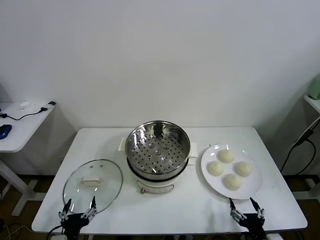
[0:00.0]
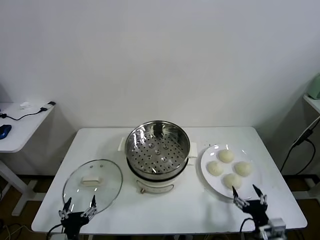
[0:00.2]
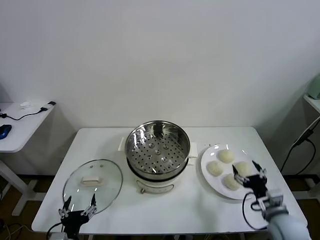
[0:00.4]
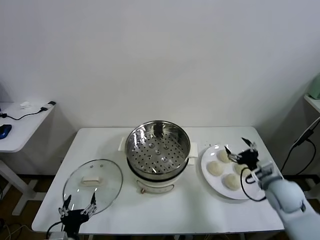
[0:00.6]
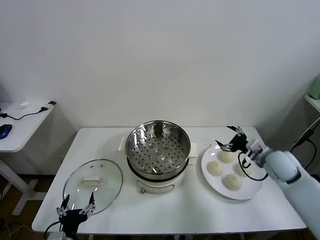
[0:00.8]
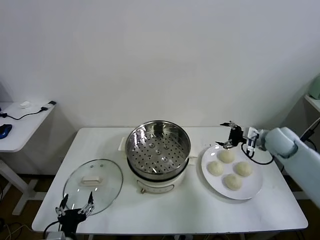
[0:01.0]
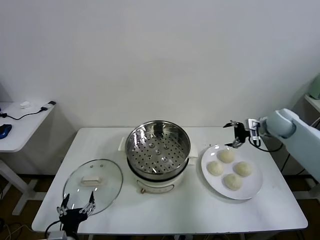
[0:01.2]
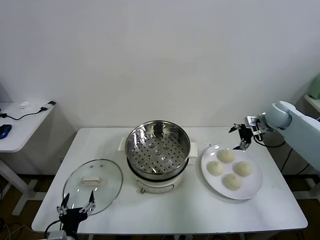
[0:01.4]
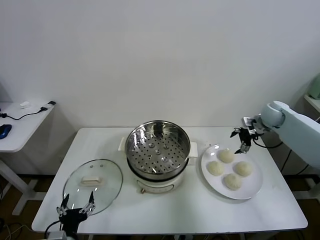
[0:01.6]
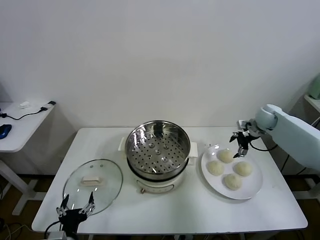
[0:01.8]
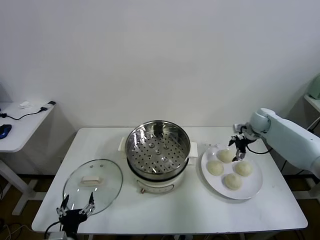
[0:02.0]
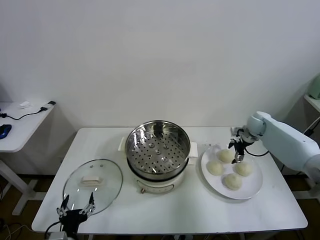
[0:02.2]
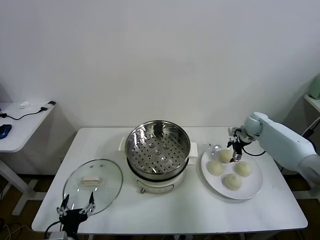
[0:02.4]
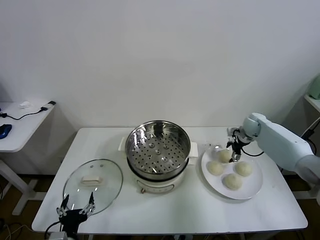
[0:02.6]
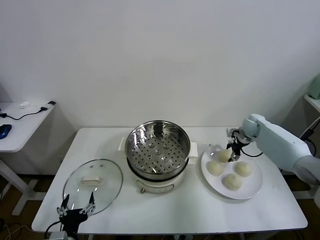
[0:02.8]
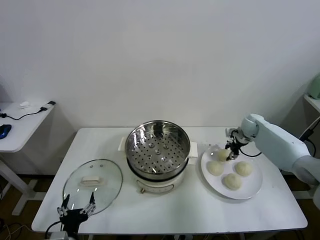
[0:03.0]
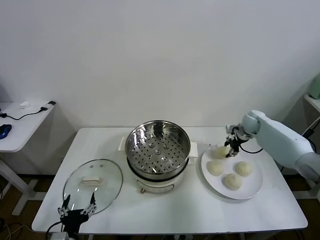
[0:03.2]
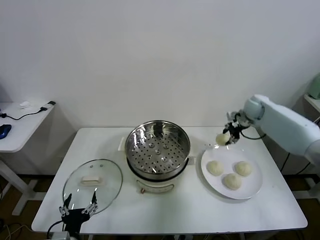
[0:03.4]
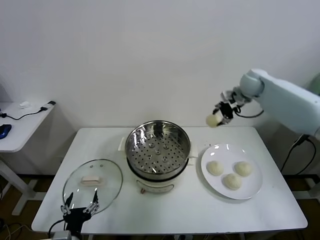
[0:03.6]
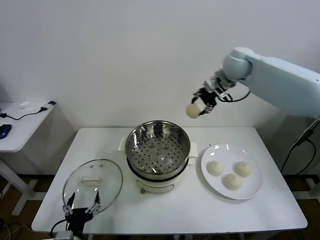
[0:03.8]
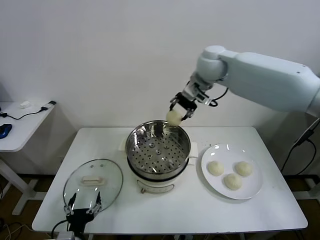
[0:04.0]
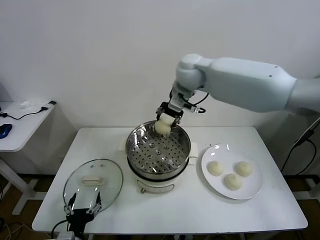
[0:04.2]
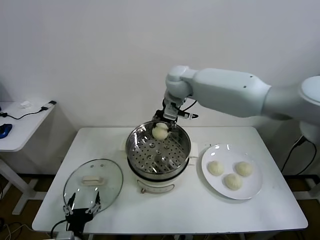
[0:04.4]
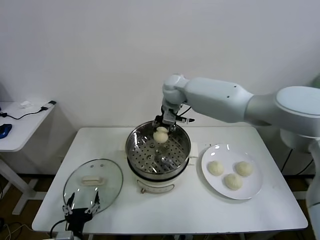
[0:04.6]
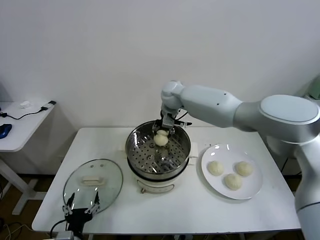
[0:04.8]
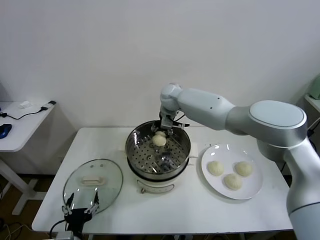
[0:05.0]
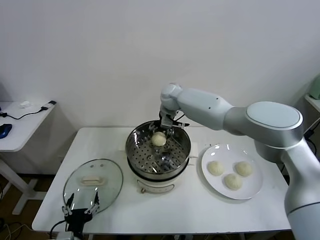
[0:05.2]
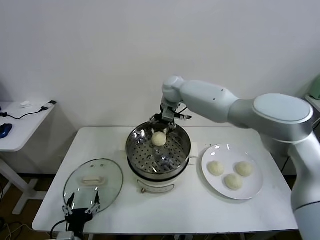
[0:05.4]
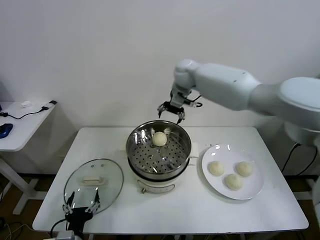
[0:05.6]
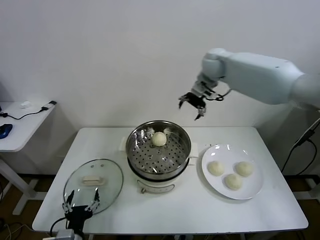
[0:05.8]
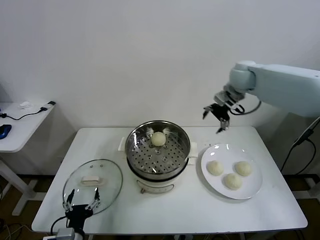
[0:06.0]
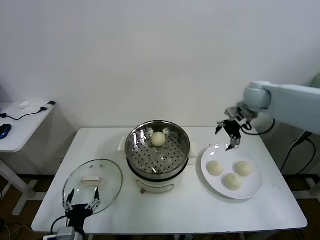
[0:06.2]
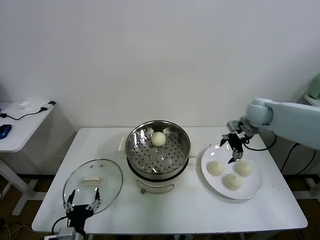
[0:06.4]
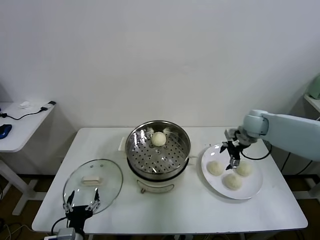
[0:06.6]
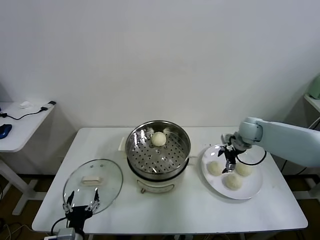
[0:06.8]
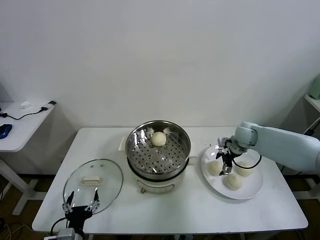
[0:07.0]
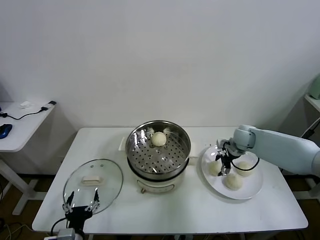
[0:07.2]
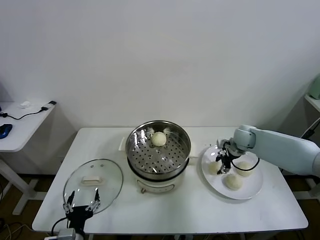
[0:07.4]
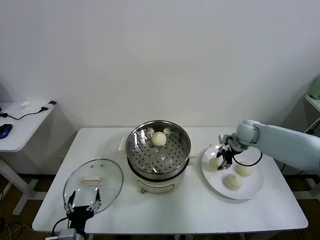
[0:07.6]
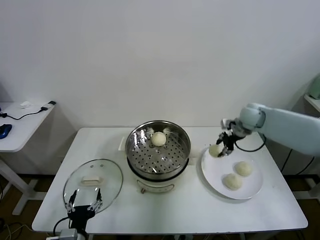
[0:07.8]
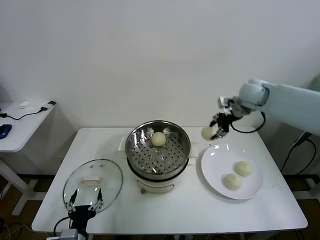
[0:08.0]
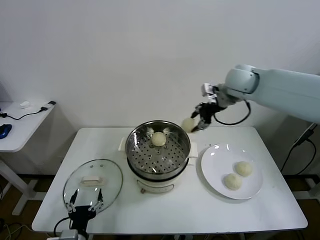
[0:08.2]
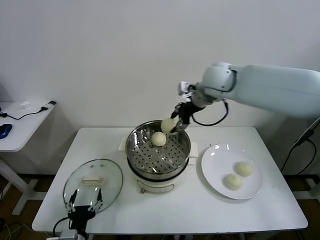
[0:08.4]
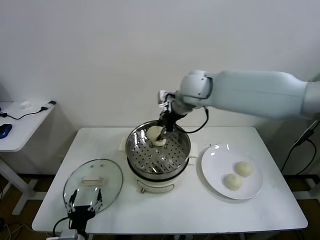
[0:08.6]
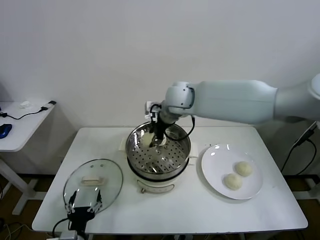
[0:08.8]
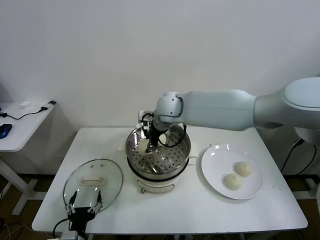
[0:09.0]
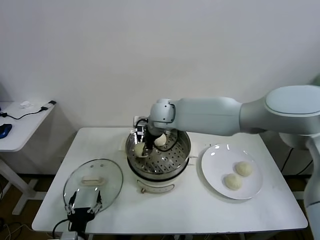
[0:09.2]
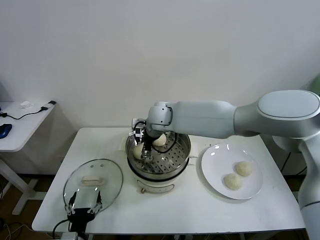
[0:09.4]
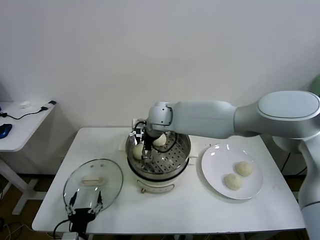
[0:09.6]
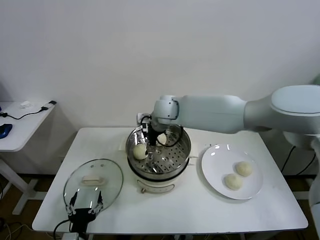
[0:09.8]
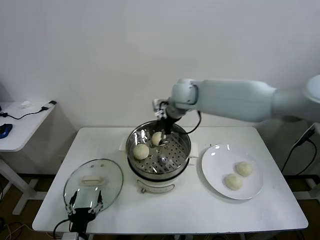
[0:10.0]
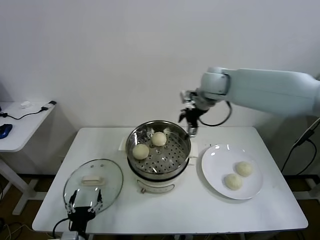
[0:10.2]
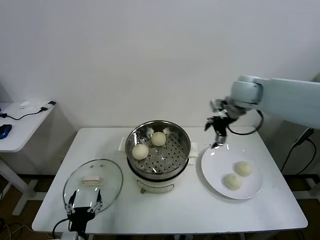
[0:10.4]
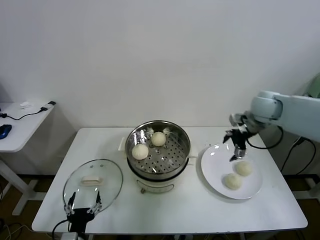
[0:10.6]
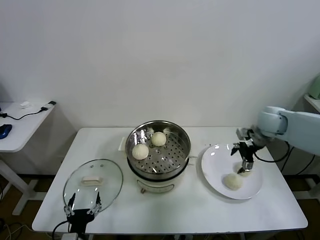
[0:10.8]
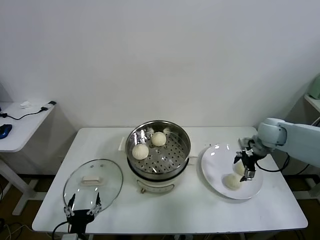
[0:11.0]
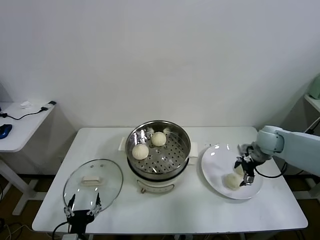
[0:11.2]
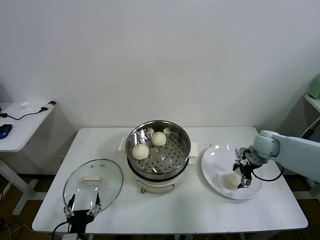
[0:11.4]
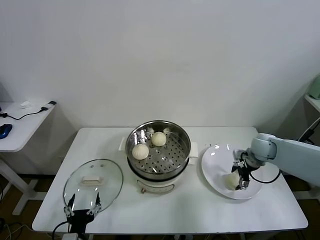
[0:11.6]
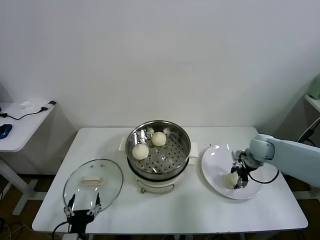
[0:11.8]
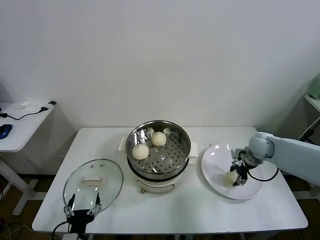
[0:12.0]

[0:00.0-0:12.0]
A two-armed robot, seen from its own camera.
Task of the whole recording: take steamed baozi put them in steamer.
Step, 0:00.0 to 0:02.8: Grasp the baozi in the plate with right gripper.
Step, 0:03.0 to 0:05.2: Place the baozi on the steamer with right gripper.
Step, 0:05.4 to 0:07.2: Grasp the baozi in the plate with right gripper.
Step, 0:07.4 to 0:09.6: Place the baozi on the steamer with right gripper.
Step, 0:09.8 to 0:11.8: Grasp the baozi in the plate with right gripper.
0:01.6 to 0:03.0: The right gripper goes some 5 cm downward, and closes up.
0:03.0 to 0:04.4: The right gripper is displaced to the left and upward by roughly 40 cm.
0:04.4 to 0:06.0: The right gripper travels to the right by roughly 25 cm, and opens up.
0:06.0 to 0:07.6: The right gripper is displaced downward by some 15 cm, and closes.
0:07.6 to 0:09.0: The right gripper is displaced to the left by roughly 30 cm.
0:09.0 to 0:10.4: The right gripper heads to the right, covering some 30 cm, and opens up.
0:10.4 to 0:12.0: The right gripper travels downward by about 20 cm, and closes its fingers.

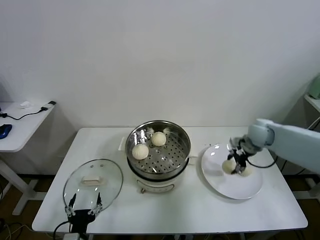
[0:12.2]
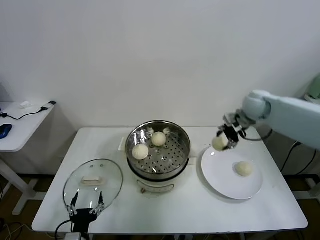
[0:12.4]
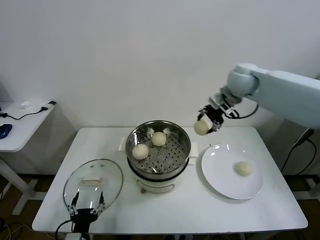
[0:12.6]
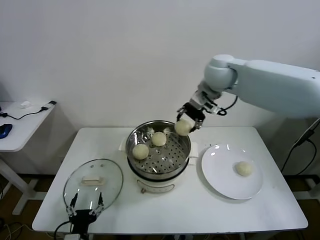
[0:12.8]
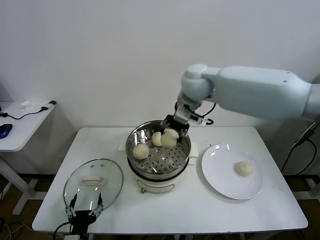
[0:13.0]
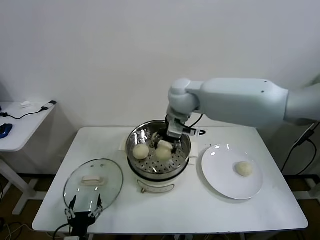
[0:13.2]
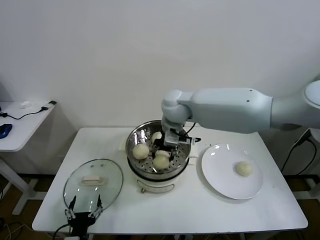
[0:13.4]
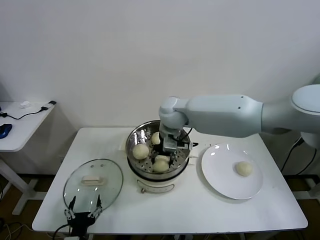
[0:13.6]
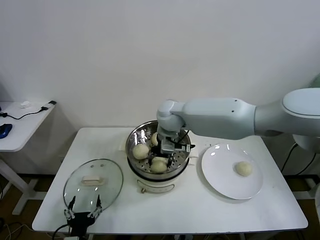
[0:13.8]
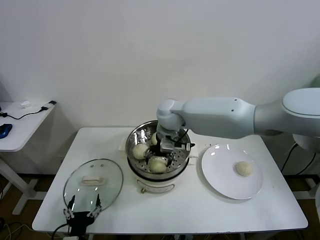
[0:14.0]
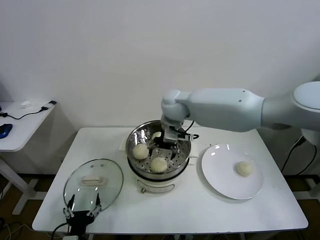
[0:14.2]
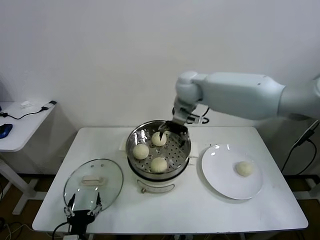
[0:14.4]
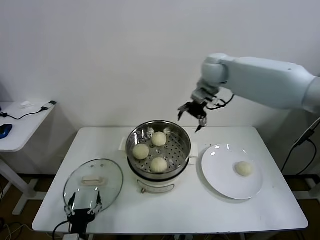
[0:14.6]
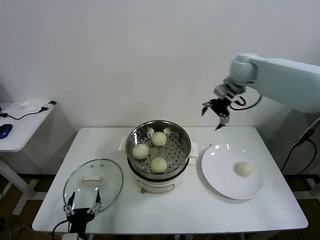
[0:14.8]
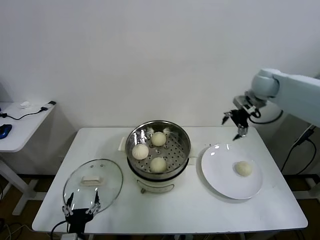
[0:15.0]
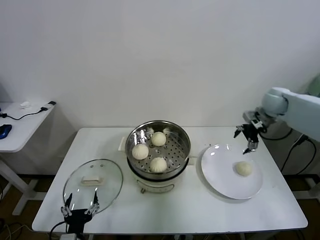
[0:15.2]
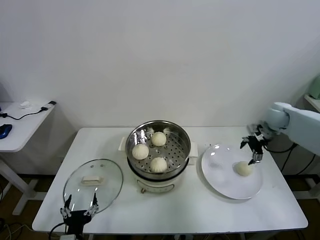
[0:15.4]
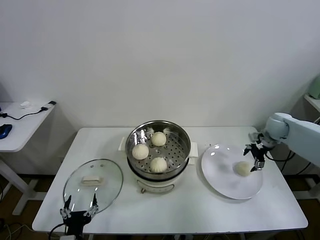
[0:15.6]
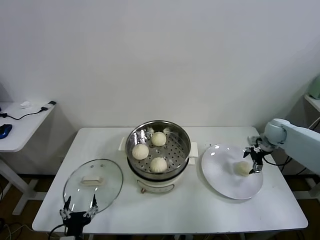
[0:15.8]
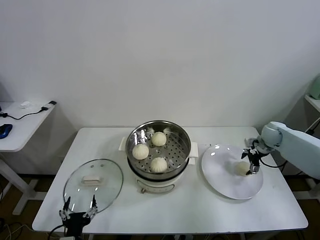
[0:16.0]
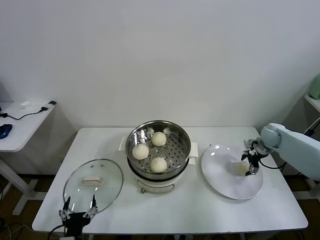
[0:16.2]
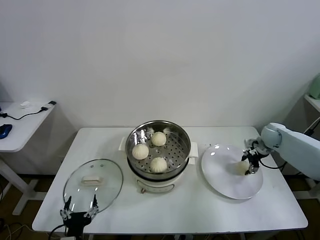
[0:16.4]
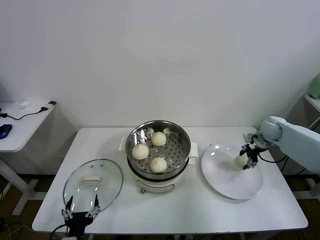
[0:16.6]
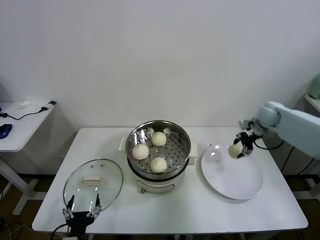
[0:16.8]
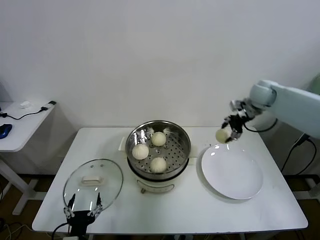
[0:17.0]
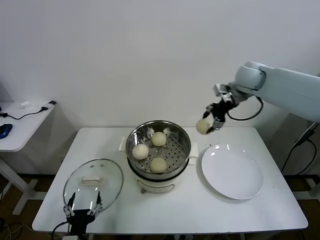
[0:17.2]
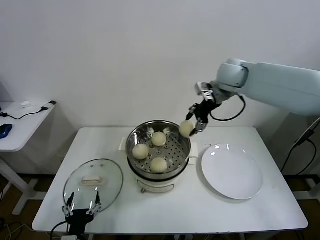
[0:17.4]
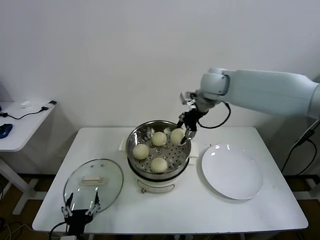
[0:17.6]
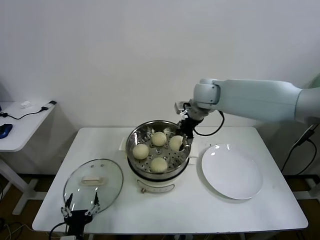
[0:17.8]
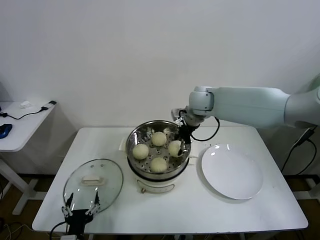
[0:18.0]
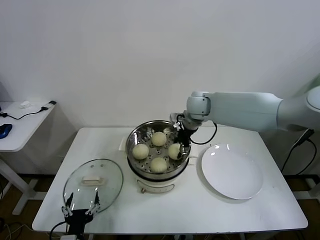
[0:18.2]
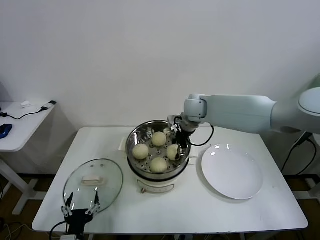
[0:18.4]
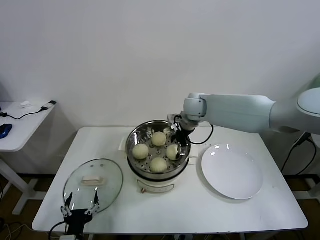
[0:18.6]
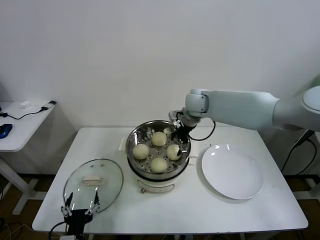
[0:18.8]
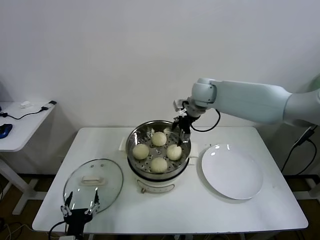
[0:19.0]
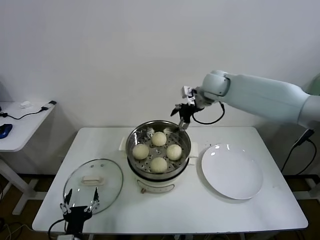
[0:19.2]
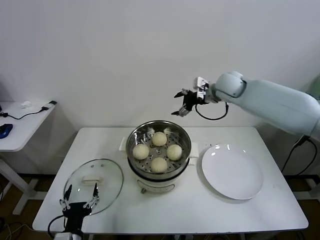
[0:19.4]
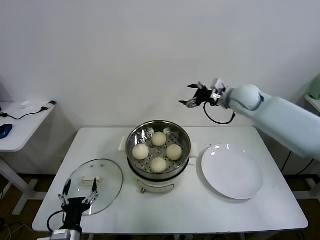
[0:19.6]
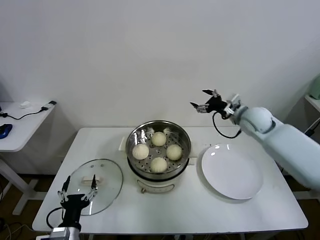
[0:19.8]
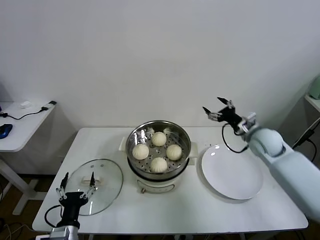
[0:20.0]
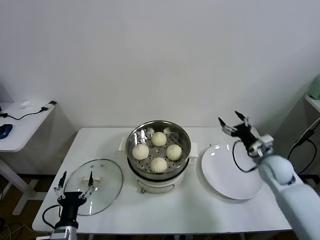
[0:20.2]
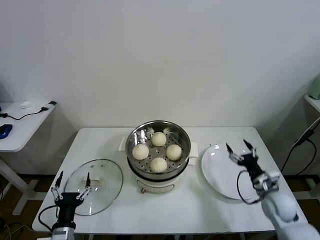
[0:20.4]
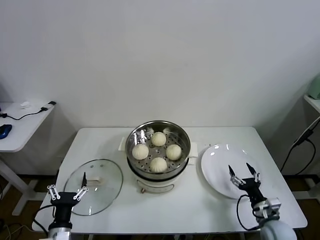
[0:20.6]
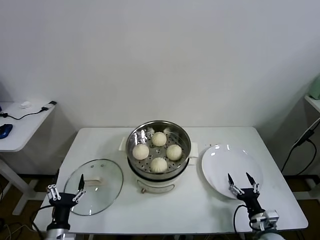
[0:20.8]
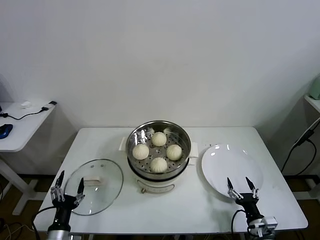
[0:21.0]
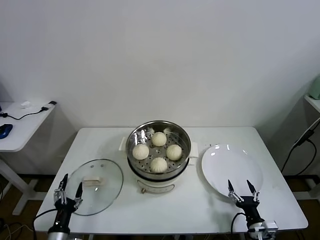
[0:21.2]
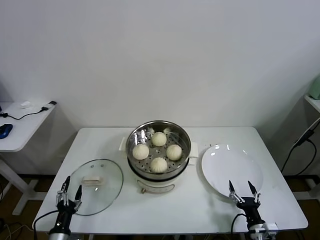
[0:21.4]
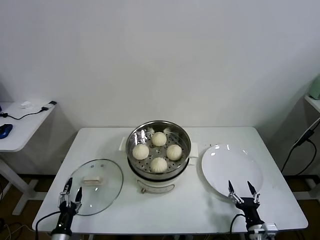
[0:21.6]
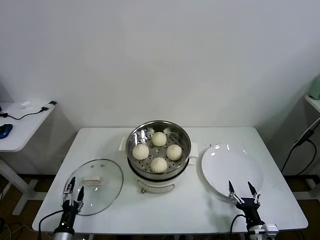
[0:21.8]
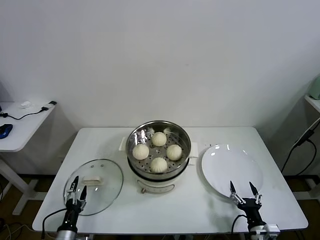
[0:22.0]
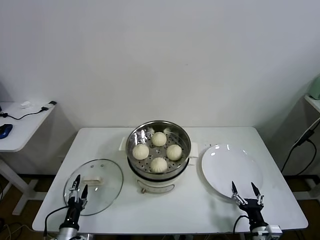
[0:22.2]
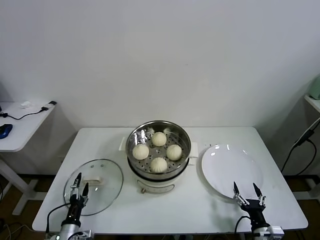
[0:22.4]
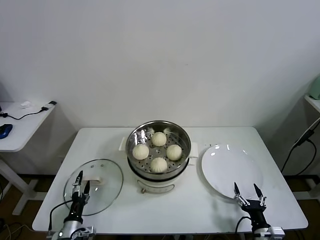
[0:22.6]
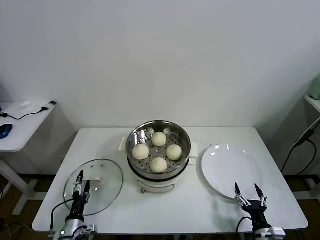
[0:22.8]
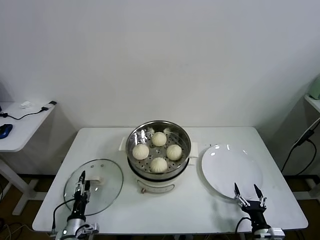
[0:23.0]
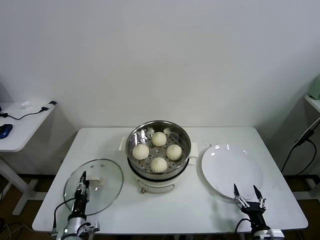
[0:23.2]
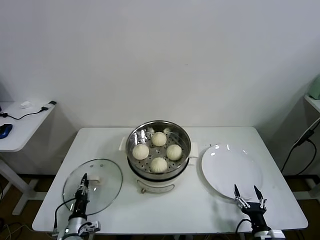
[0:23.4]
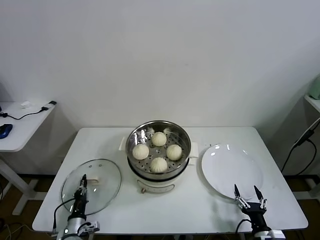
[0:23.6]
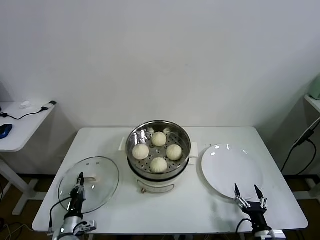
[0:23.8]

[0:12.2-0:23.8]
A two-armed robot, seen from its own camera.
Task of the whole recording: take steamed baozi put them in steamer.
Step, 0:12.2 to 0:14.0: Place the baozi on the steamer with right gripper.
Step, 0:14.2 to 0:16.2: Grasp the baozi in the plate with right gripper.
Step, 0:16.4 to 0:18.6: Place the baozi on the steamer with right gripper.
Step, 0:18.8 to 0:23.4: Grasp the pot lid with left gripper.
0:12.2 to 0:13.6: The right gripper moves to the left, roughly 30 cm.
0:13.6 to 0:15.0: The right gripper goes roughly 35 cm to the right, and opens up.
0:15.0 to 0:16.6: The right gripper travels downward and to the right by approximately 20 cm, and closes.
0:16.6 to 0:18.0: The right gripper is displaced to the left and upward by about 35 cm.
0:18.0 to 0:19.4: The right gripper is displaced to the right by approximately 10 cm, and opens.
0:19.4 to 0:21.0: The left gripper is displaced to the left and downward by roughly 10 cm, while the right gripper is displaced downward and backward by roughly 50 cm.
0:21.0 to 0:22.4: The left gripper moves downward, approximately 5 cm.
0:22.4 to 0:23.8: The left gripper closes.
